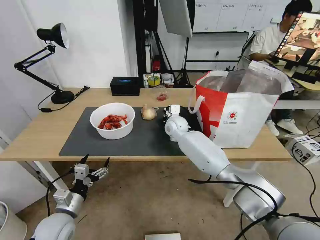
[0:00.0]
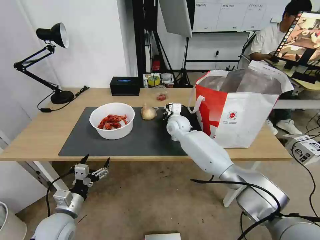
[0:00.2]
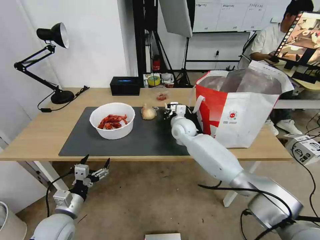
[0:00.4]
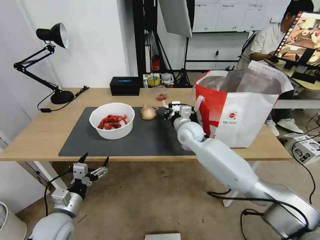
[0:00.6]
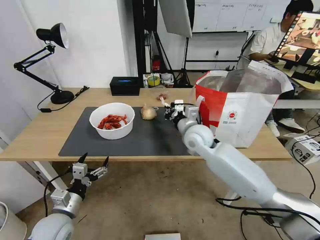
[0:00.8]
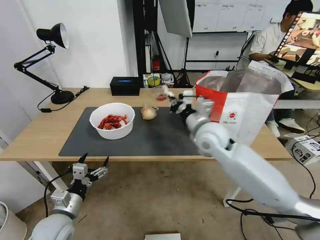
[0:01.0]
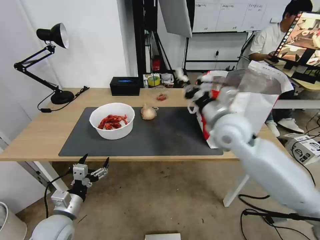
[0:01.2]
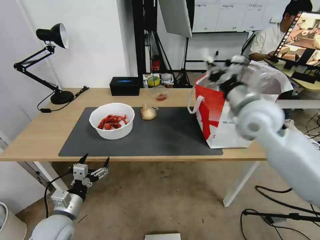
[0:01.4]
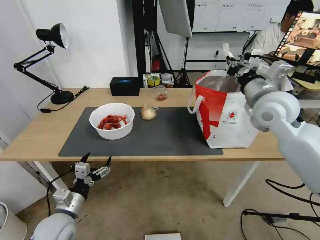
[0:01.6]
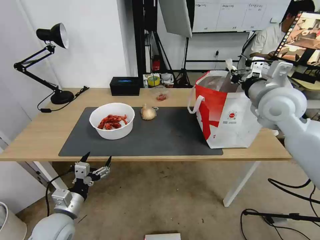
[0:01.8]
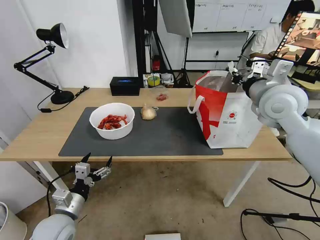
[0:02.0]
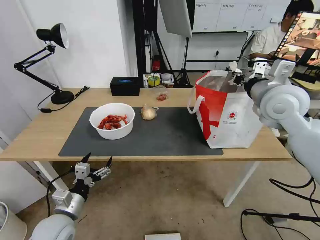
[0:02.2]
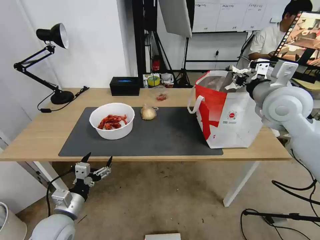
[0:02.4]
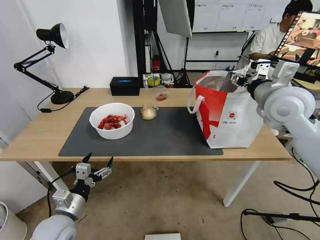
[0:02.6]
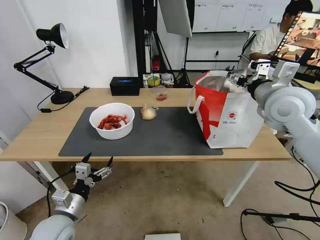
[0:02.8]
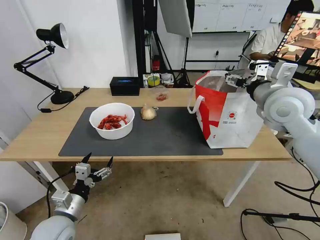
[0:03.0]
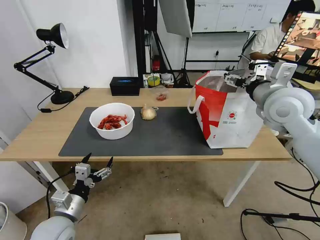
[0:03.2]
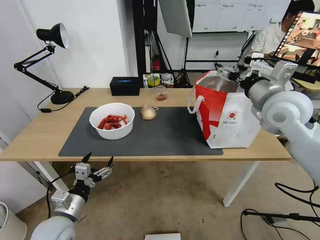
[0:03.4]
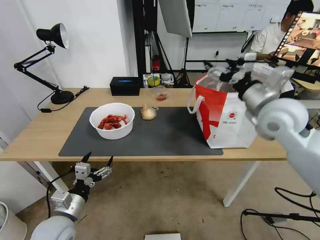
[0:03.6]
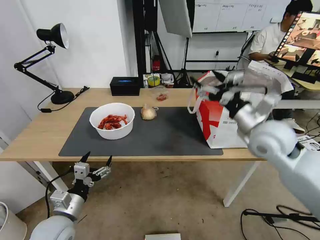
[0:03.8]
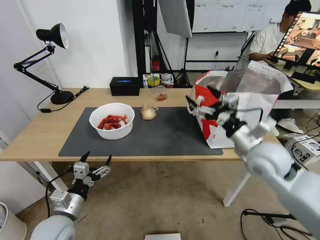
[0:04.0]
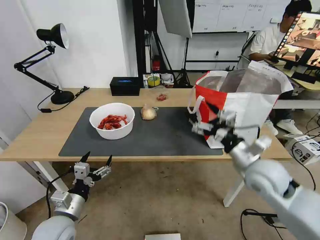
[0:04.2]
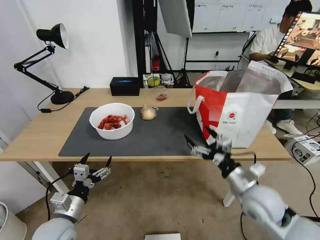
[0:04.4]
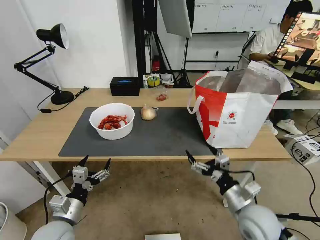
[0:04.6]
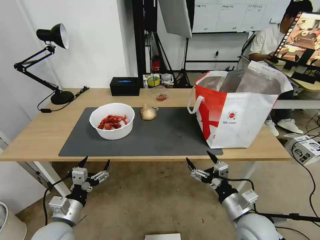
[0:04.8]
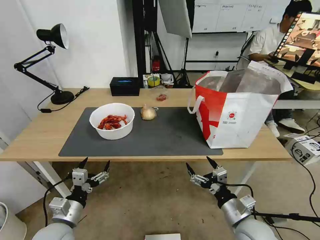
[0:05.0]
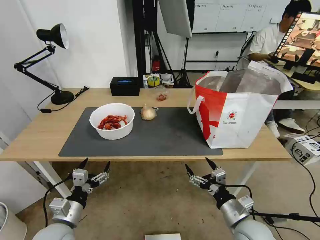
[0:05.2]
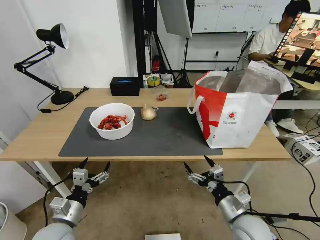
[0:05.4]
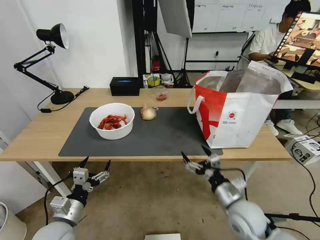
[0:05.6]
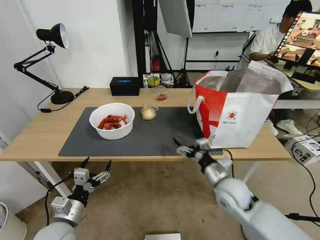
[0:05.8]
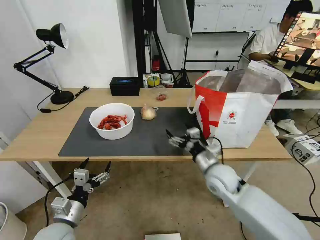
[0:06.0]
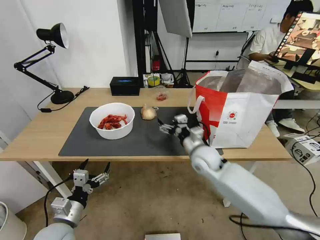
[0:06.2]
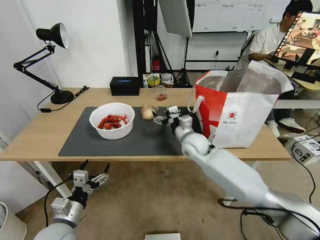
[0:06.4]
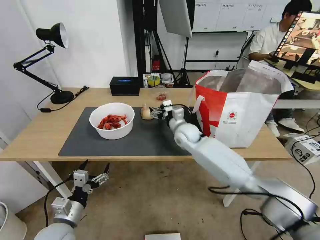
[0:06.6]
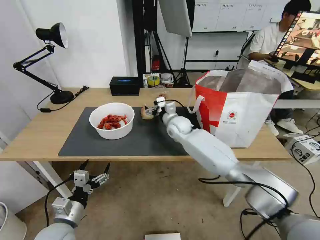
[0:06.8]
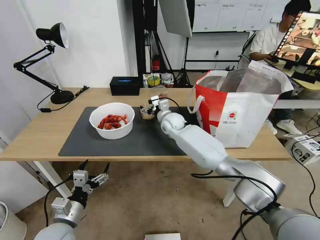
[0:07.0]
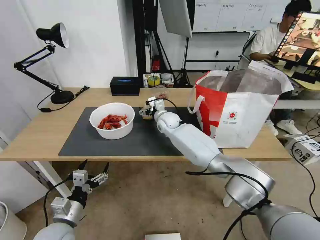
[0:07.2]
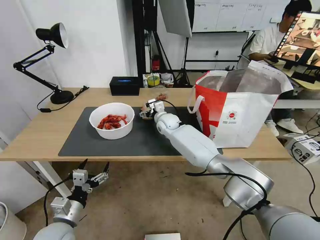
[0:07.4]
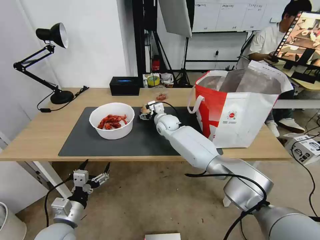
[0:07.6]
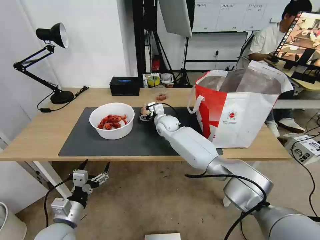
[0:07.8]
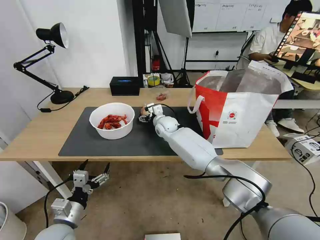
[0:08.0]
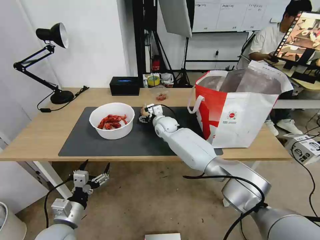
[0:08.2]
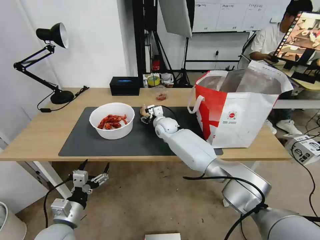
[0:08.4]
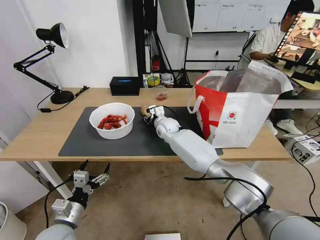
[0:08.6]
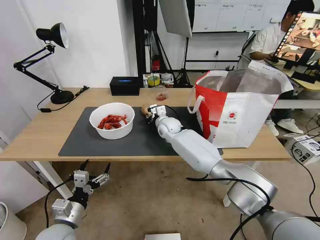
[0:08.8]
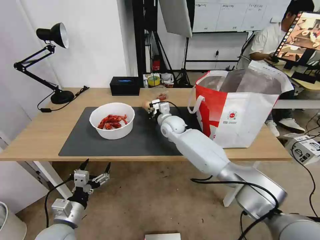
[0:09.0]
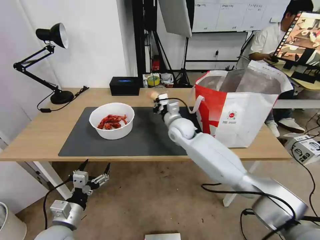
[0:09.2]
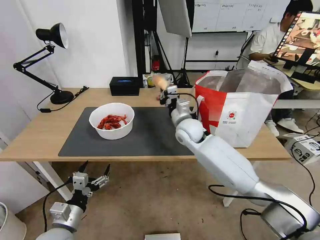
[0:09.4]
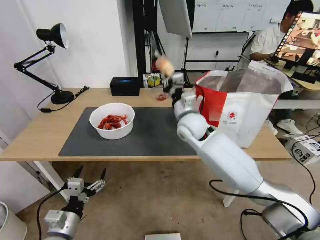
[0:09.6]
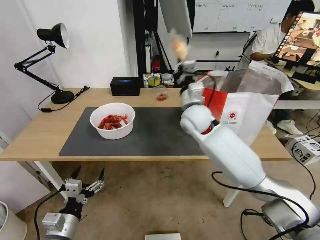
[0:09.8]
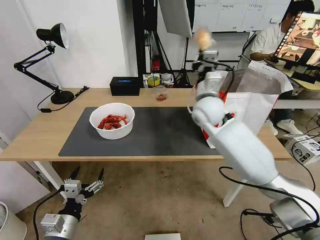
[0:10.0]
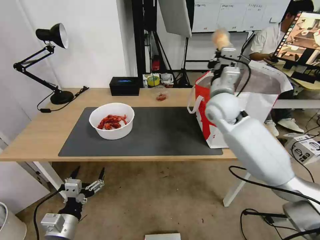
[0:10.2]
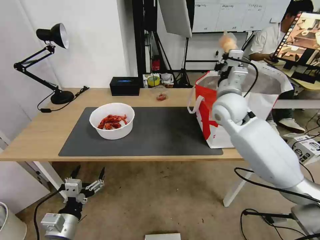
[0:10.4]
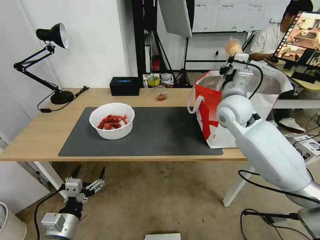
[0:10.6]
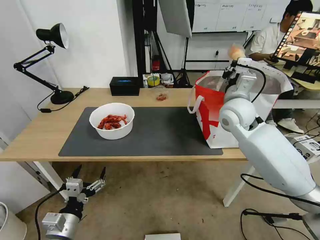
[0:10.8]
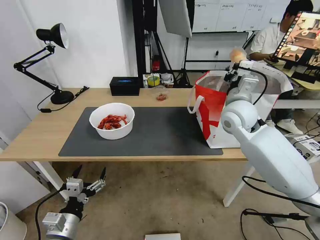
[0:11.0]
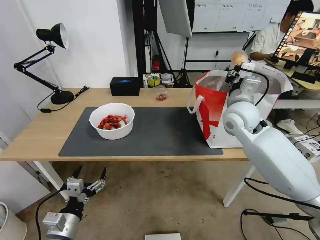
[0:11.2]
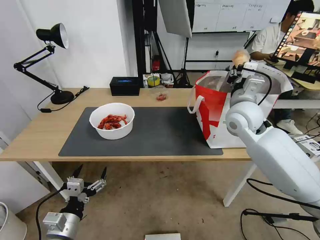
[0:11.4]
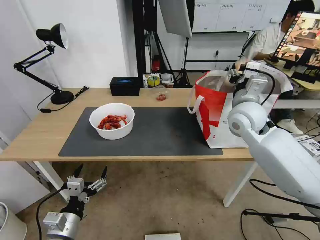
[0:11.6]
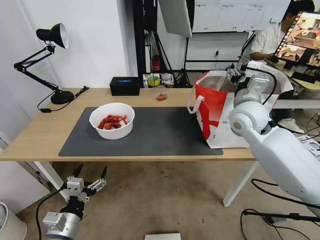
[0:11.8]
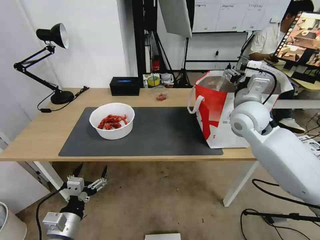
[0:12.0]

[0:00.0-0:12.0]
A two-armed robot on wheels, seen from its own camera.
Task of the whole recording: Pick up the trash from the table and place it into the takeout bag.
0:00.0 to 0:01.6: The right gripper is displaced to the right, upward and backward by about 35 cm, and closes.
0:01.6 to 0:03.0: The right gripper opens up.
0:03.0 to 0:04.4: The right gripper travels downward and backward by about 25 cm.
0:04.4 to 0:06.0: The right gripper shifts roughly 15 cm forward and to the left.
0:06.0 to 0:07.6: The right gripper heads forward and to the left, covering approximately 25 cm.
0:07.6 to 0:09.0: The right gripper closes.
0:09.0 to 0:10.4: The right gripper travels upward, to the right and backward by roughly 25 cm.
0:10.4 to 0:12.0: The right gripper shifts by some 5 cm, and opens up.

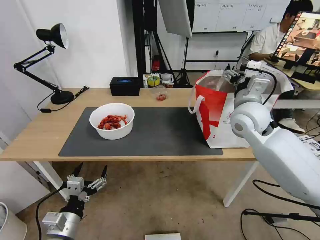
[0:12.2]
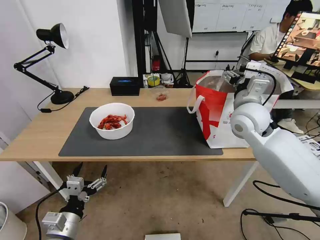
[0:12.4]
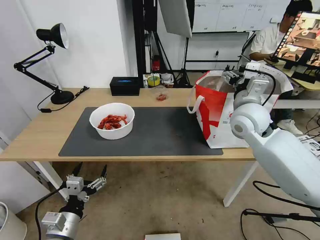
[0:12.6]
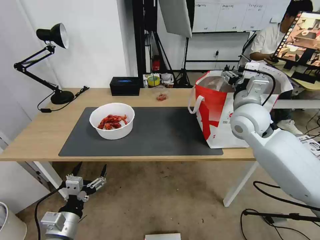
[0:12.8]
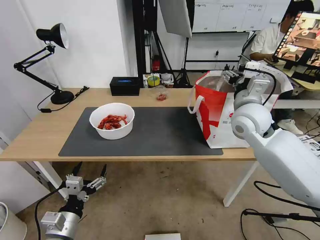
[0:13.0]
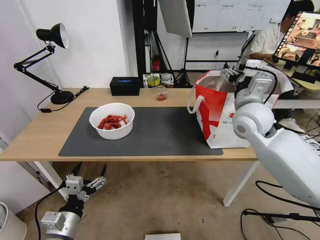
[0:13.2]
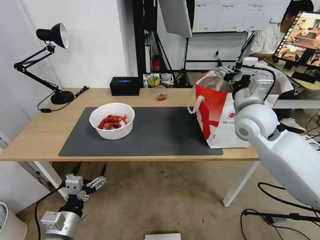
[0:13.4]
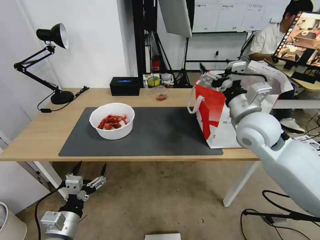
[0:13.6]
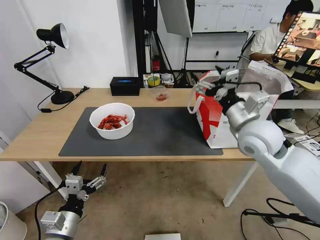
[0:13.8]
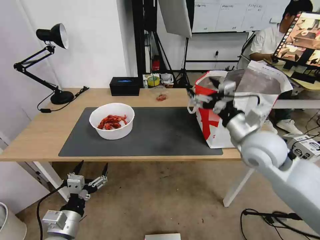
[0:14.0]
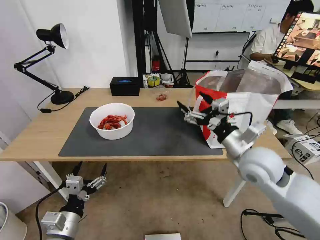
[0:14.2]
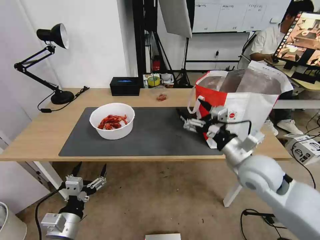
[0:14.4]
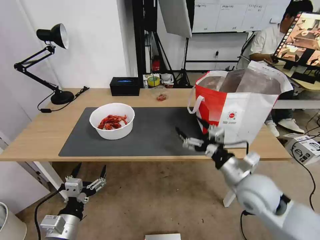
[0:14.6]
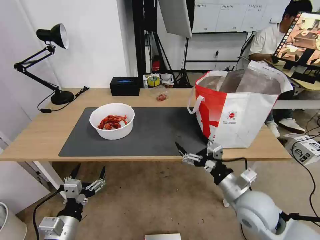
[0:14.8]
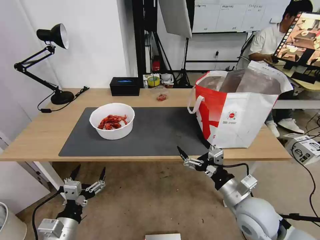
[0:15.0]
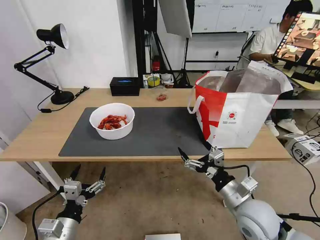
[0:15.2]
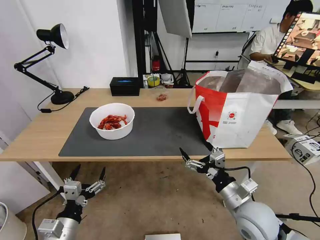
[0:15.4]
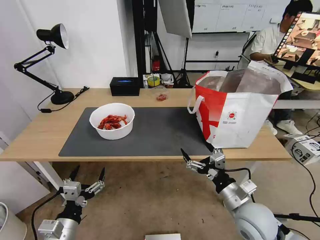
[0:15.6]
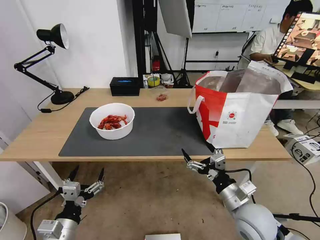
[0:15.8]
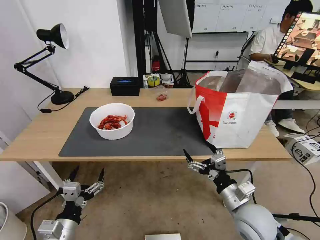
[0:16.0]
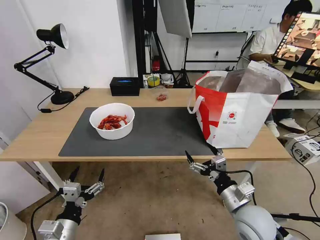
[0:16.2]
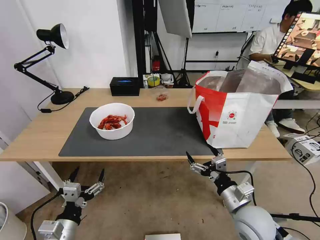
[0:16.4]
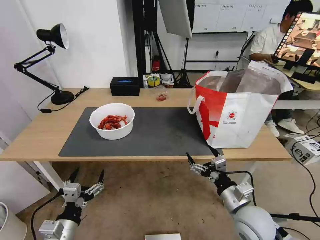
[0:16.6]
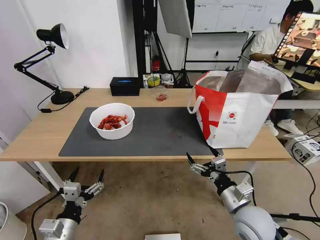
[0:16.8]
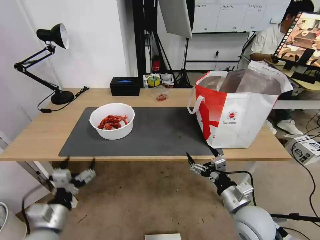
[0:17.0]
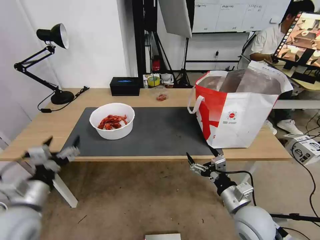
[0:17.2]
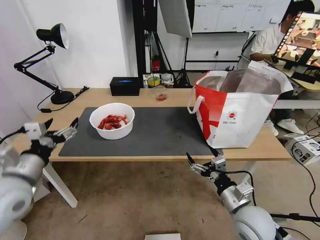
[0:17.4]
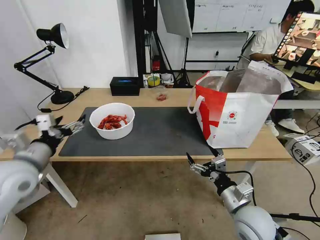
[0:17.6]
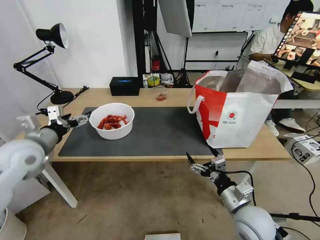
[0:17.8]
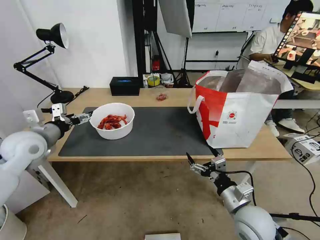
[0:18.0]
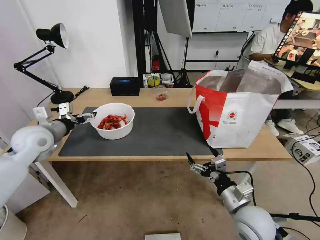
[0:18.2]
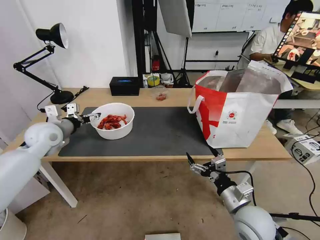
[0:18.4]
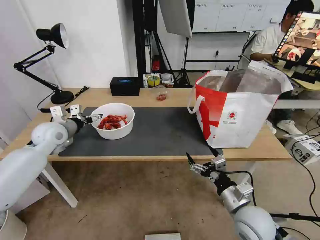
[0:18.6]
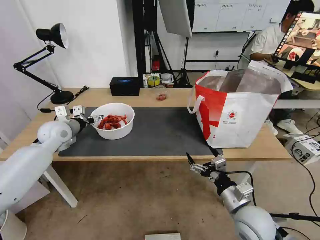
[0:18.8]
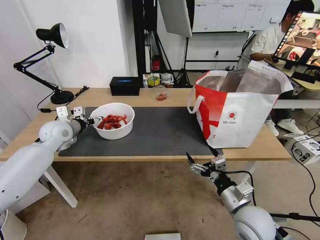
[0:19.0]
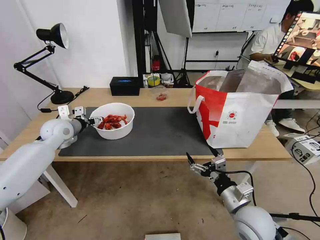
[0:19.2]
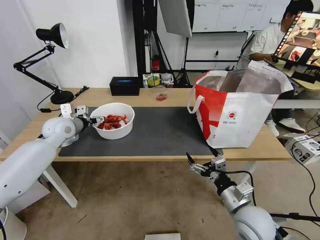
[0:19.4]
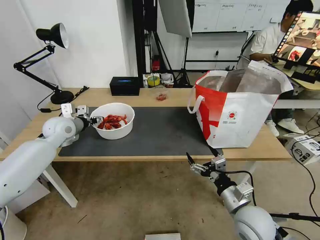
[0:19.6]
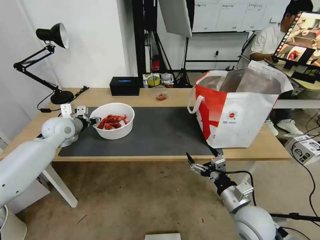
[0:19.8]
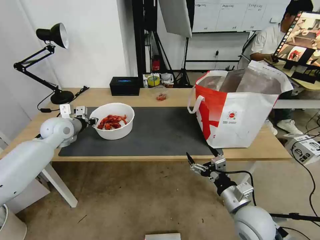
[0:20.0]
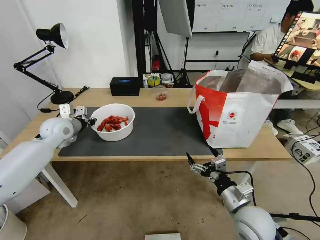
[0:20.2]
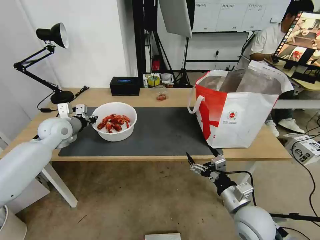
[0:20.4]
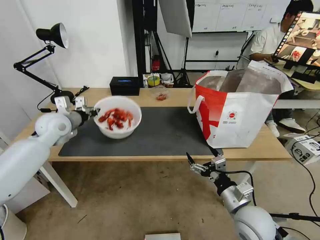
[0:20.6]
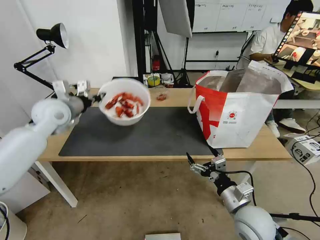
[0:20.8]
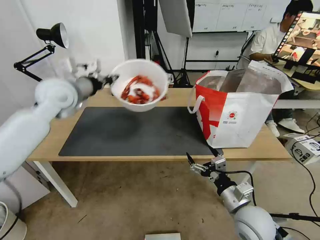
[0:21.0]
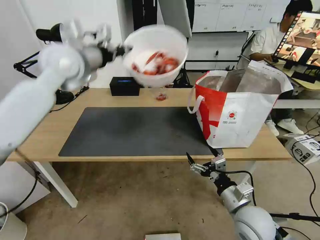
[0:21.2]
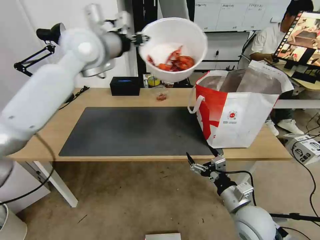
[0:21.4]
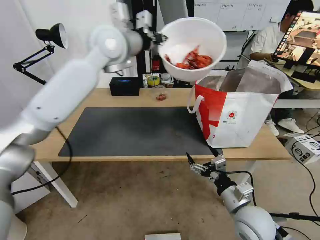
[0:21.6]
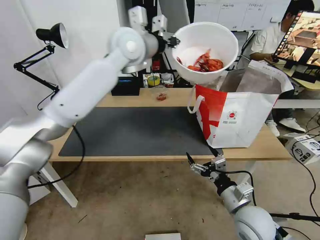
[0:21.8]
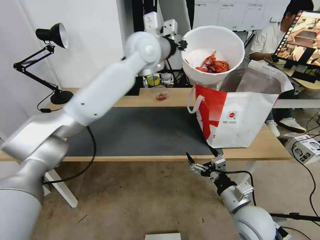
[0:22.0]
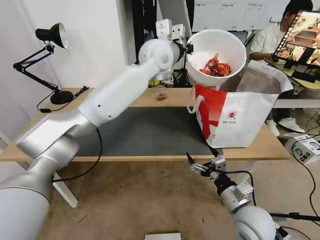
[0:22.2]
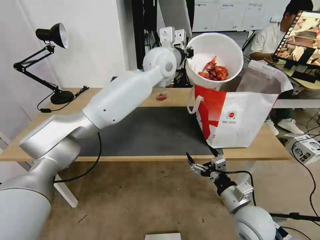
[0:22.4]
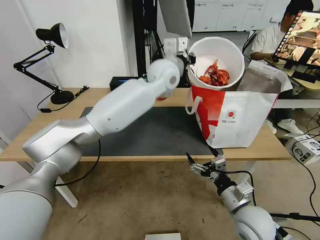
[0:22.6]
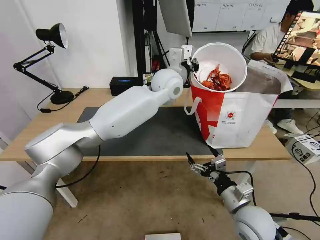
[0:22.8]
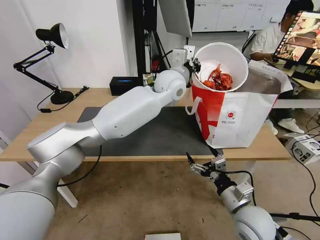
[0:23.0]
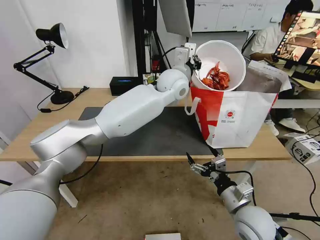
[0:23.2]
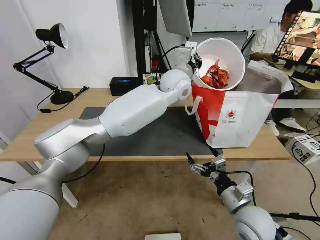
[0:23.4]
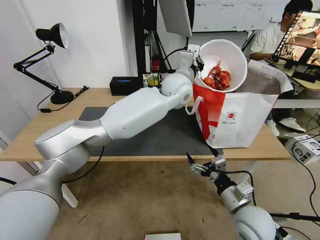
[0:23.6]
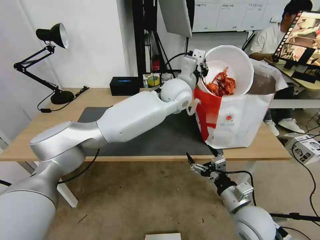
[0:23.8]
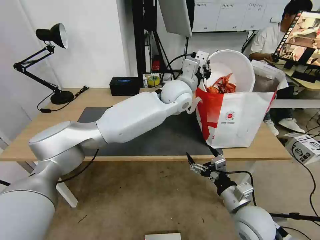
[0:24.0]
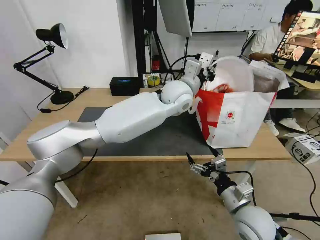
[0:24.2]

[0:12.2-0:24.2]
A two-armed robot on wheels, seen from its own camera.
Task of the whole recording: Pick up the trash from the table and place it into the takeout bag.
0:12.2 to 0:13.8: The right gripper goes some 5 cm backward.
0:13.8 to 0:15.2: The right gripper is displaced downward and backward by about 20 cm.
0:15.2 to 0:16.6: The grippers move only a little.
0:16.6 to 0:18.2: The left gripper shifts some 35 cm forward and upward.
0:18.2 to 0:19.8: The left gripper shifts some 5 cm forward, and closes up.
0:19.8 to 0:21.2: The left gripper is displaced upward and to the right by about 25 cm, and closes.
0:21.2 to 0:22.6: The left gripper heads to the right, covering some 25 cm.
0:22.6 to 0:24.2: The left gripper ends up about 5 cm from where it was.
